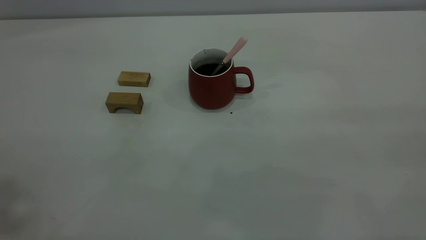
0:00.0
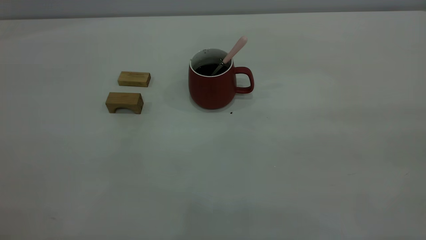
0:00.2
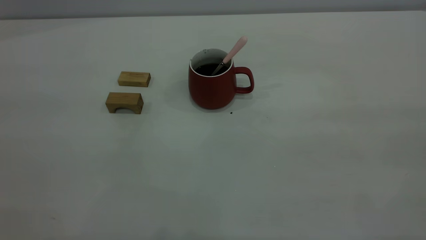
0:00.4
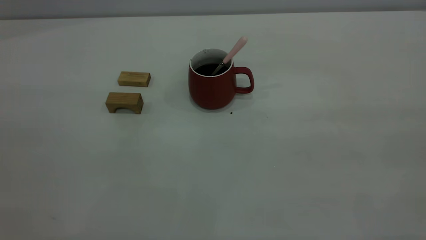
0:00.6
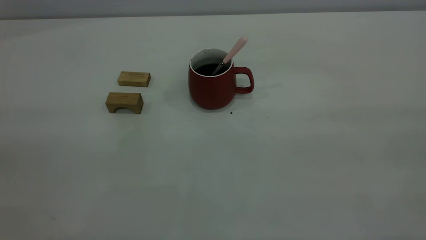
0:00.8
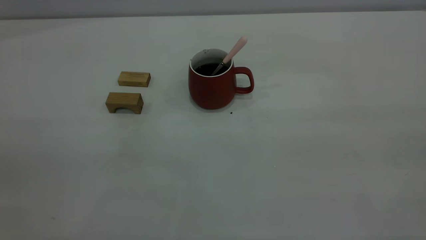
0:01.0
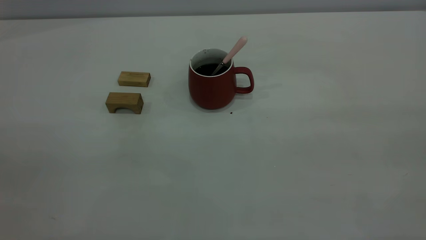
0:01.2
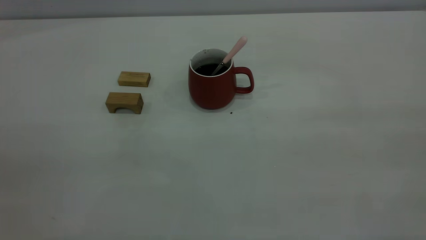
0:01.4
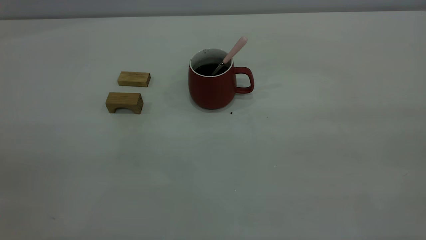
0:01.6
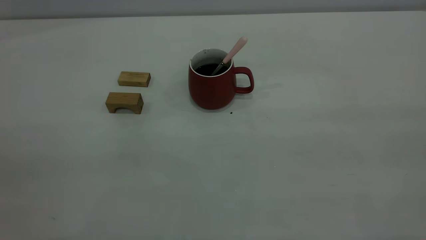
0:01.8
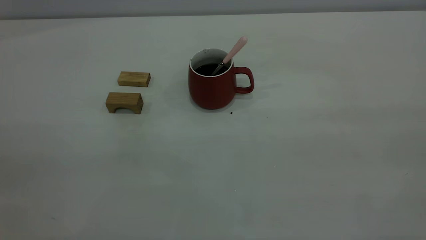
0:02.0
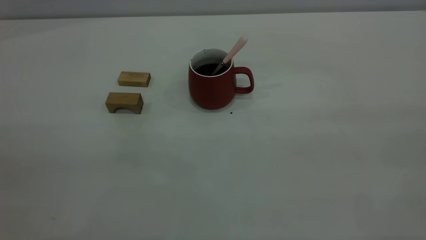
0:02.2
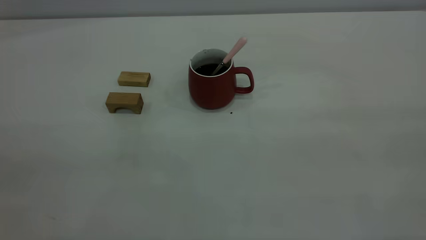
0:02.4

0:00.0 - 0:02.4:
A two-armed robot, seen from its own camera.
0:01.2 - 0:02.4: Both grippers stay put.
